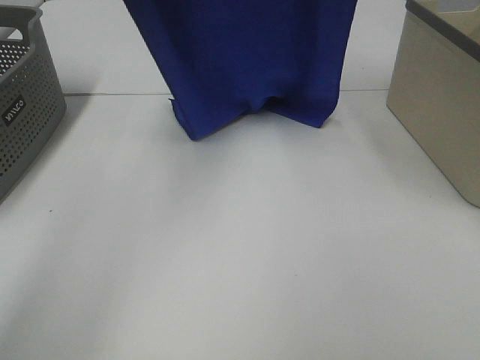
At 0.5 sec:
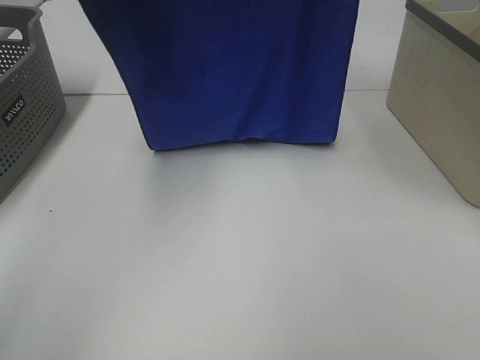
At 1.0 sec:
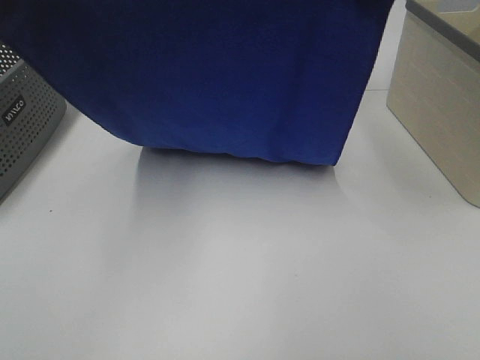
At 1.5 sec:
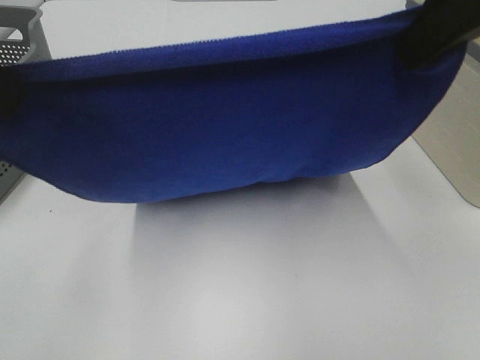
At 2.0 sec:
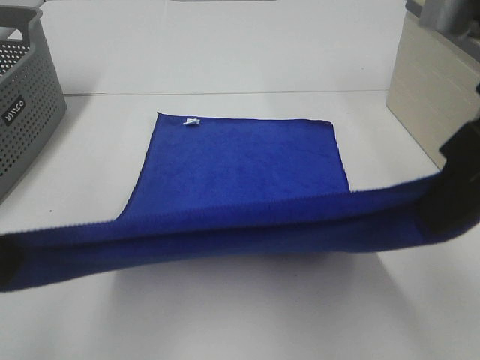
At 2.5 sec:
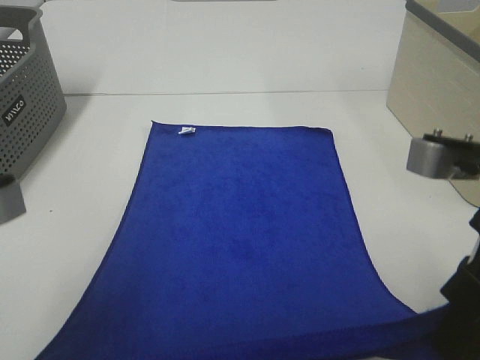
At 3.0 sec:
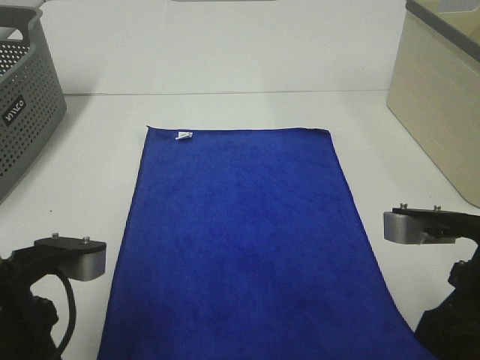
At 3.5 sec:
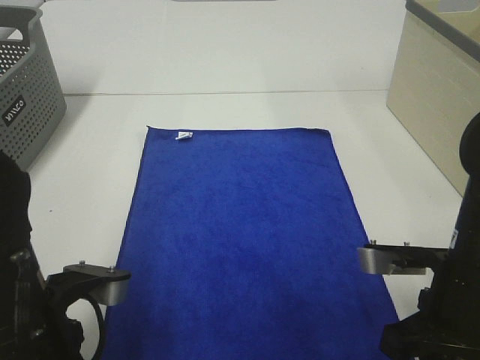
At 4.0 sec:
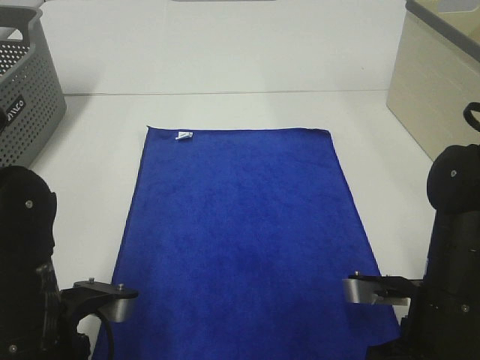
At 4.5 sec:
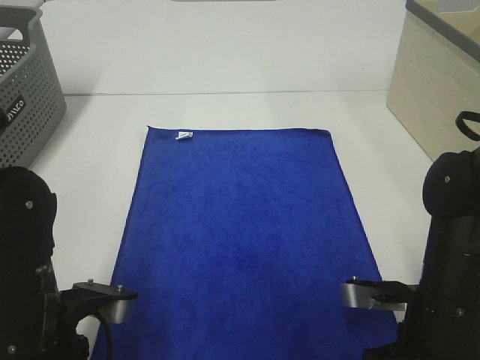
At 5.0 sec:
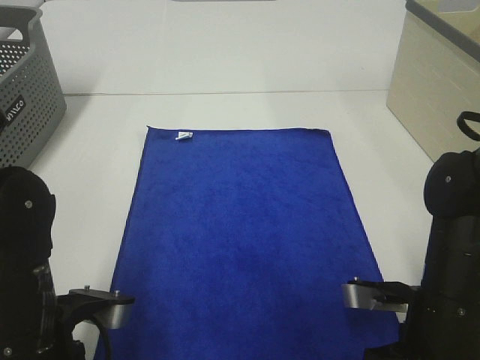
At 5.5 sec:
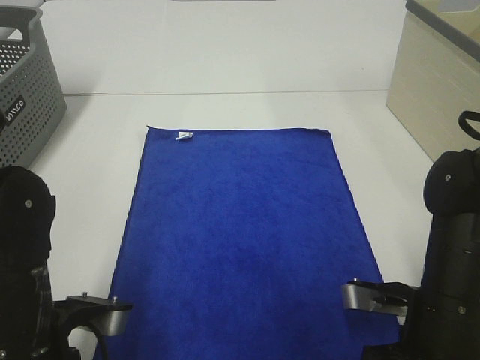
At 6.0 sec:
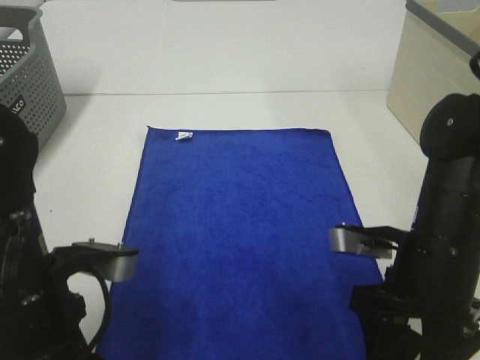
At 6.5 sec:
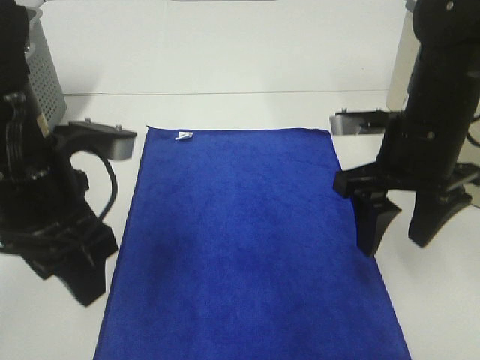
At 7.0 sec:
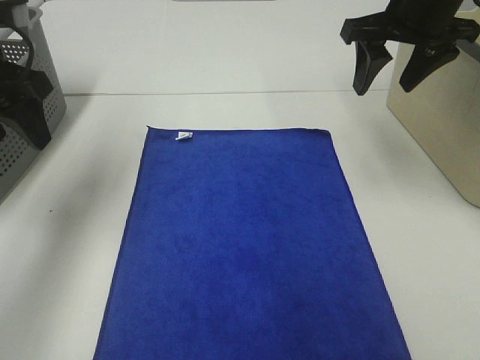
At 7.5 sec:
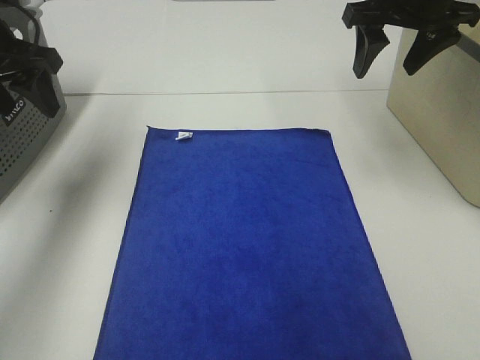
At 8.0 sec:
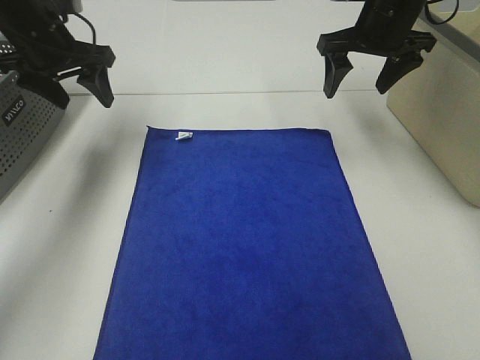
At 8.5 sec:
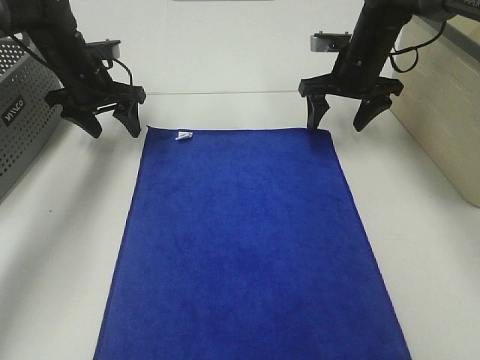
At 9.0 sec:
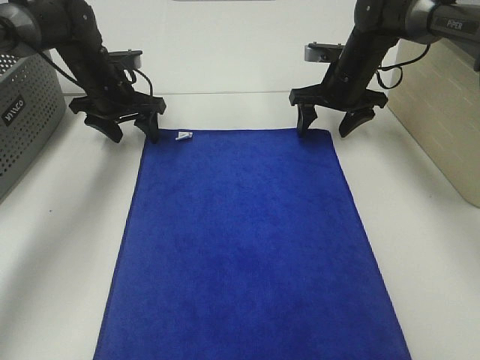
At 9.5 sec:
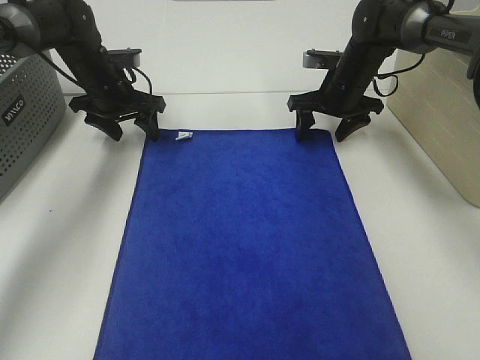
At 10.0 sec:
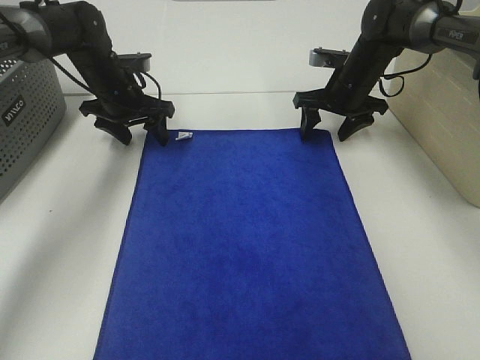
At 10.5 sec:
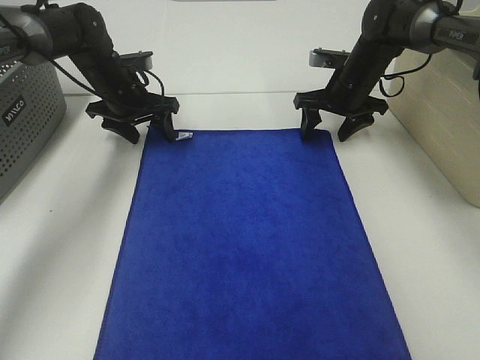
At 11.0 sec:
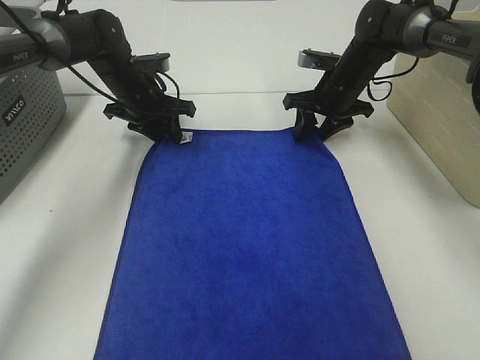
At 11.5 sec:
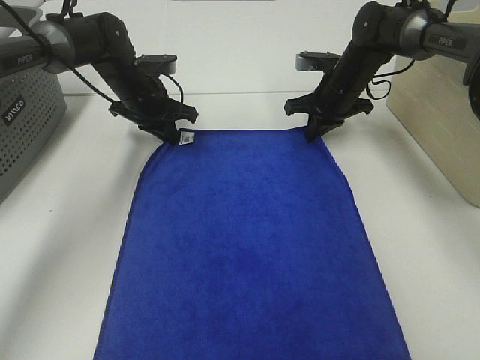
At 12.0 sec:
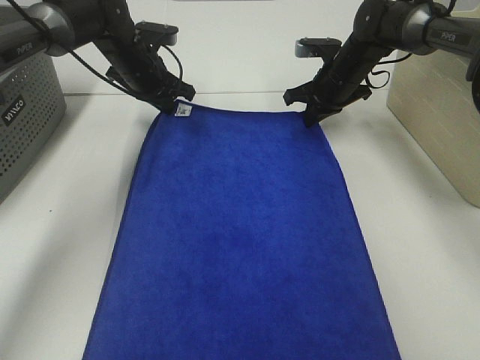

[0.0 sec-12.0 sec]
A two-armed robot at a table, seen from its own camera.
Task of the whole recording: Remove the towel and place it.
Step, 0.0 sec to 8.0 sec: Left hand:adjust the blue towel.
Step, 0.0 sec to 8.0 sec: Right hand:adjust the blue towel.
0.0 sec to 2.0 sec: The grippers both shift backward and downward by approximately 30 cm.
2.0 sec to 4.0 sec: The grippers both shift downward by approximately 20 cm.
4.0 sec to 6.0 sec: The left gripper heads upward, covering about 5 cm, and opens up, while the right gripper changes place by approximately 5 cm, and opens up.
6.0 sec to 8.0 sec: The two grippers go some 30 cm forward.
8.0 sec to 10.0 sec: The left gripper heads downward and forward, covering about 15 cm. Meanwhile the right gripper travels downward by about 15 cm.
10.0 sec to 12.0 sec: The right gripper closes its fingers. Meanwhile the left gripper changes place by approximately 5 cm, and closes up.

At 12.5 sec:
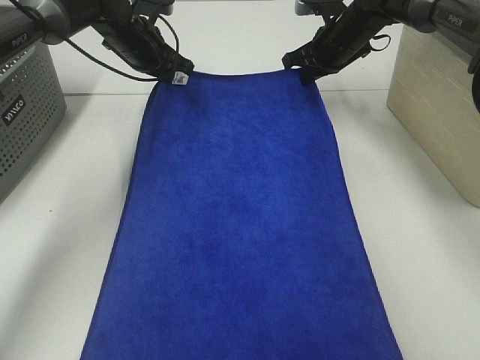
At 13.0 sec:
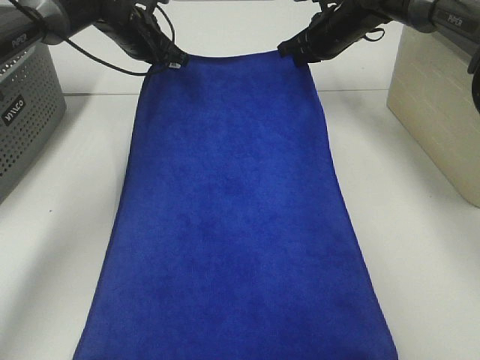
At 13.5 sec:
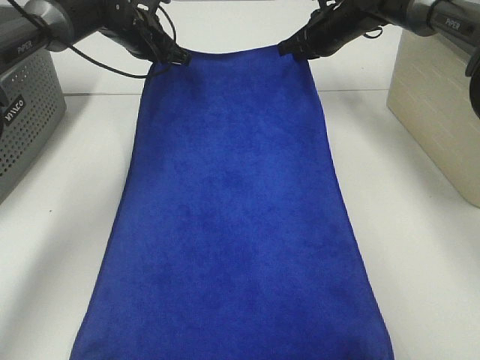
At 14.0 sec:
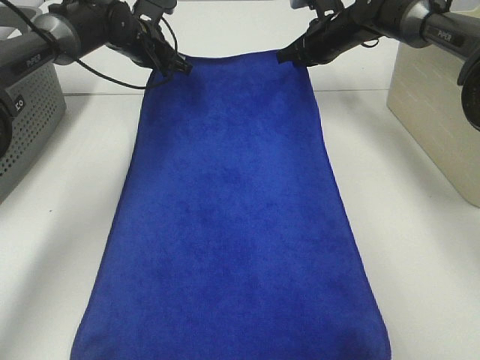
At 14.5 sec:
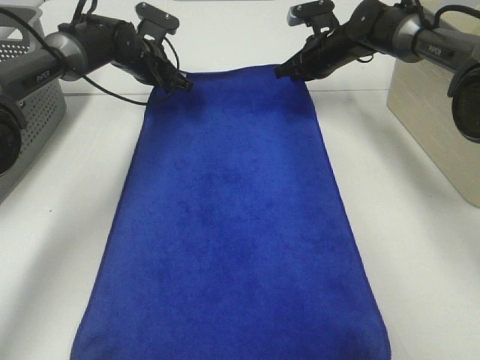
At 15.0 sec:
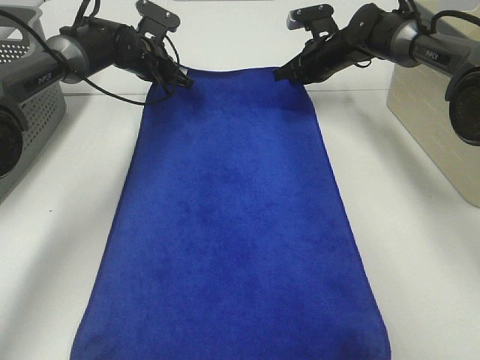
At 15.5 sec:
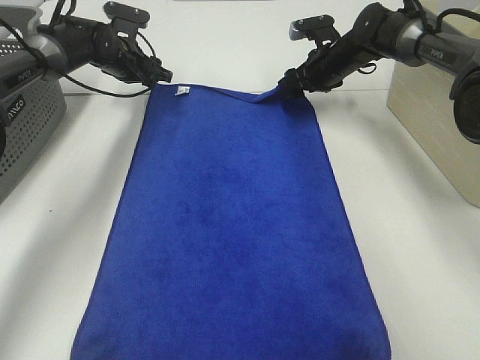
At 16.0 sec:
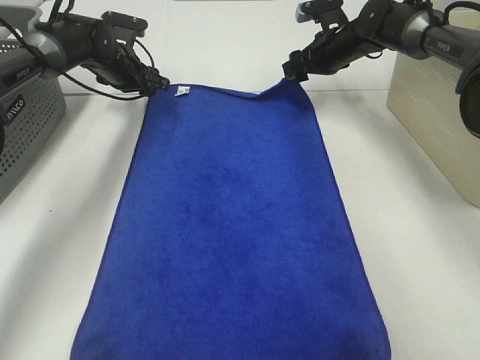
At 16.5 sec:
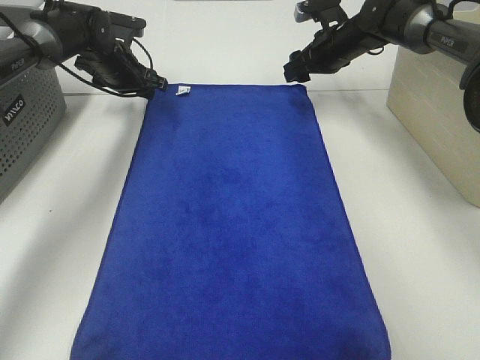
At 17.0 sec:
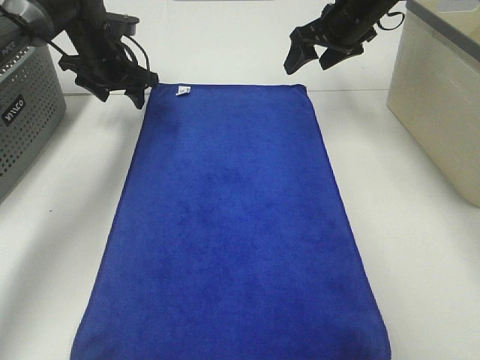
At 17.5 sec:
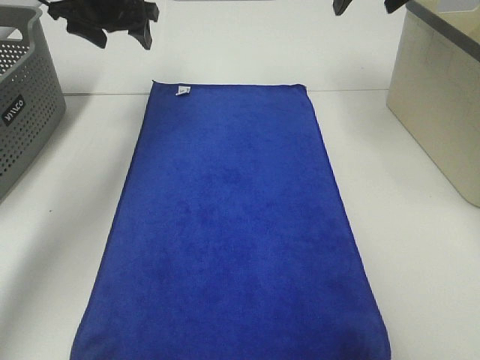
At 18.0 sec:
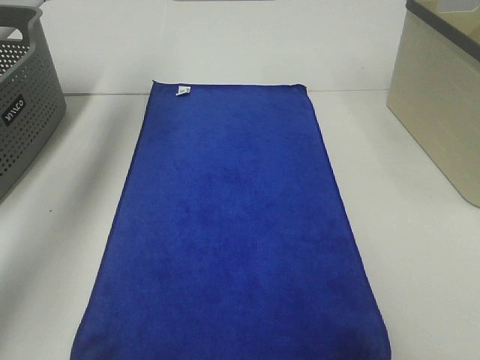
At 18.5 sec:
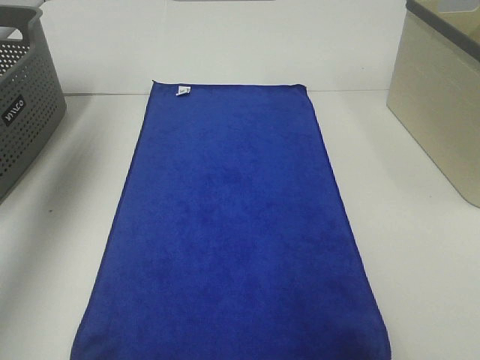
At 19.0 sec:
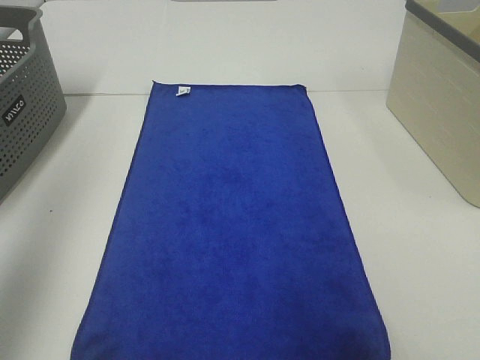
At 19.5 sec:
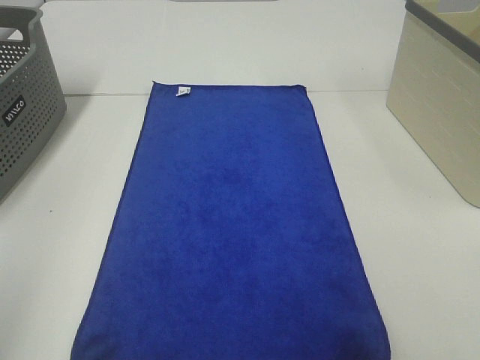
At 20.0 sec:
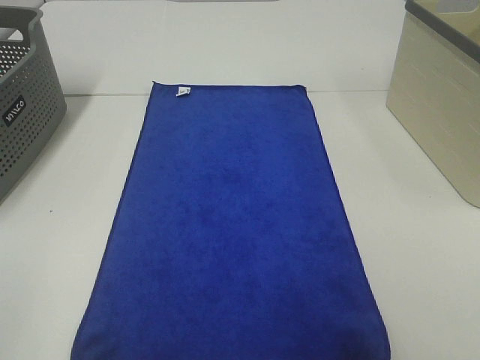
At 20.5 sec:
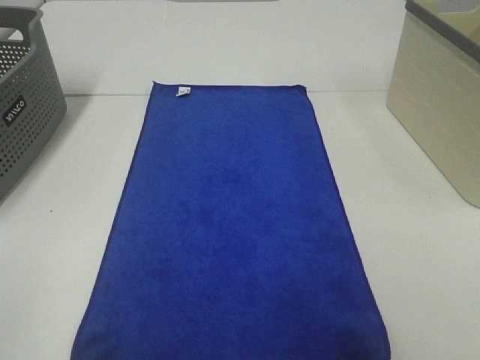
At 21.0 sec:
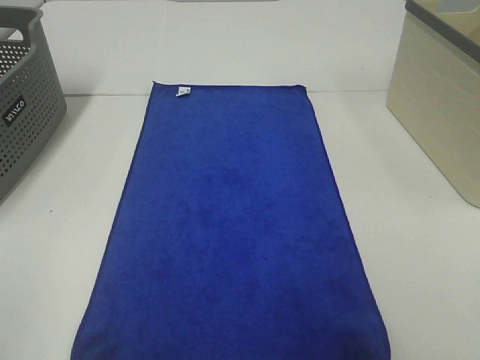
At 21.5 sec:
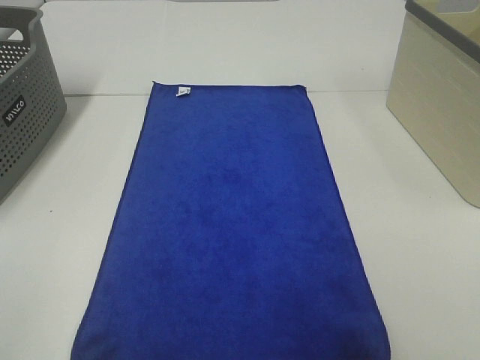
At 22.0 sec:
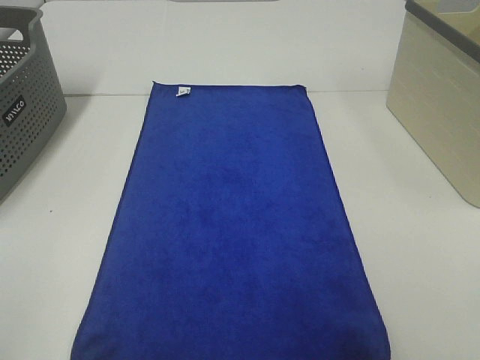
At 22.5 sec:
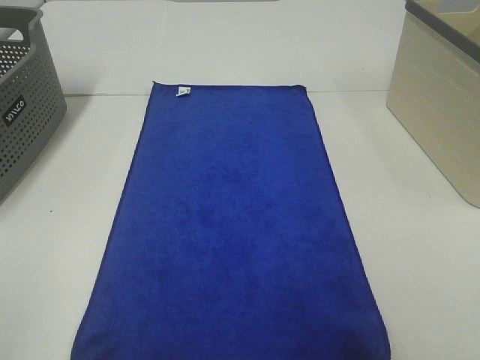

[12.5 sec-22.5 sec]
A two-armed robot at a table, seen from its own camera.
Task of the whole recording: Remove the towel and place it.
12.5 sec to 14.5 sec: The left gripper shifts by approximately 5 cm.
14.5 sec to 16.5 sec: The left gripper opens up, while the right gripper opens up.
16.5 sec to 18.5 sec: The right gripper travels upward and backward by about 40 cm. The left gripper goes roughly 40 cm upward, backward and to the left.
18.5 sec to 20.5 sec: The left gripper shifts roughly 40 cm backward.

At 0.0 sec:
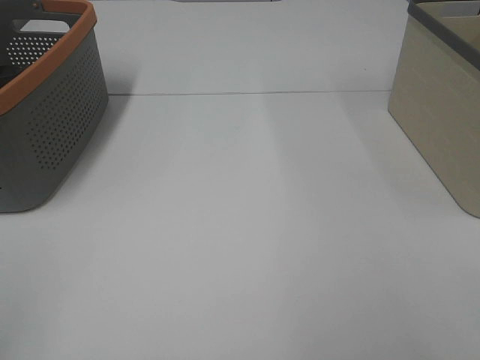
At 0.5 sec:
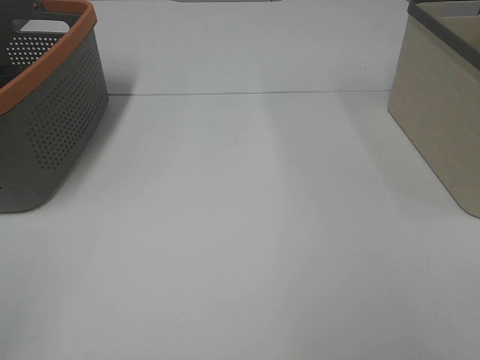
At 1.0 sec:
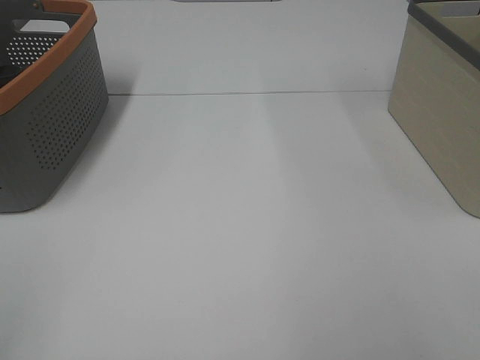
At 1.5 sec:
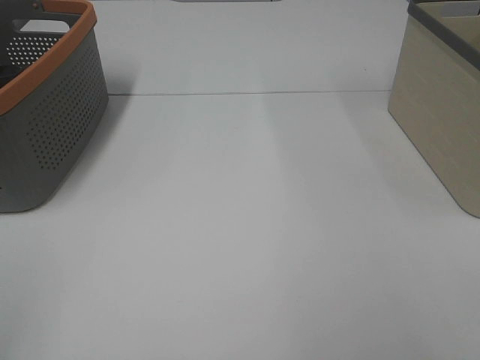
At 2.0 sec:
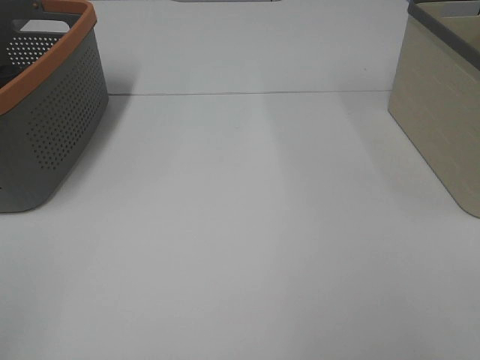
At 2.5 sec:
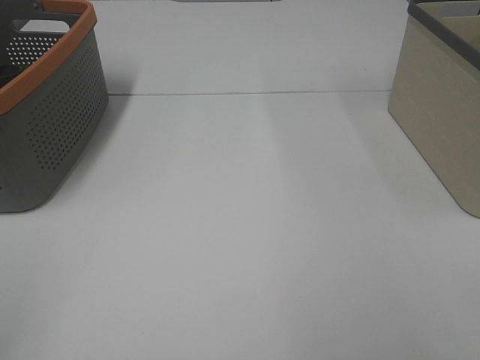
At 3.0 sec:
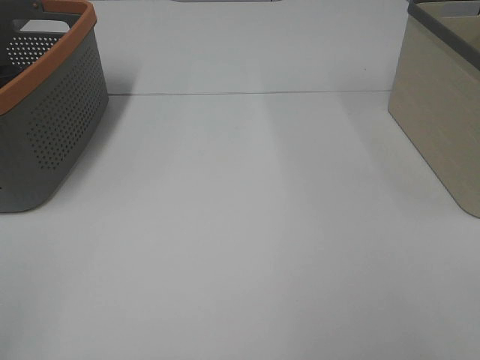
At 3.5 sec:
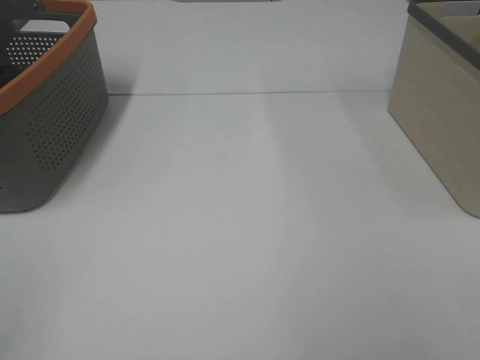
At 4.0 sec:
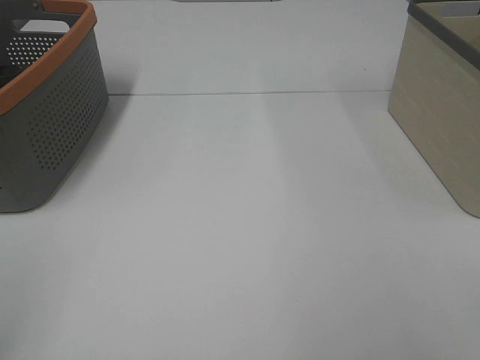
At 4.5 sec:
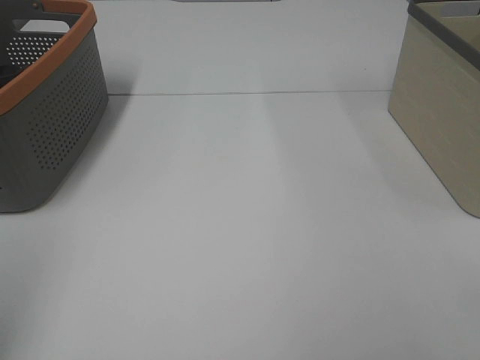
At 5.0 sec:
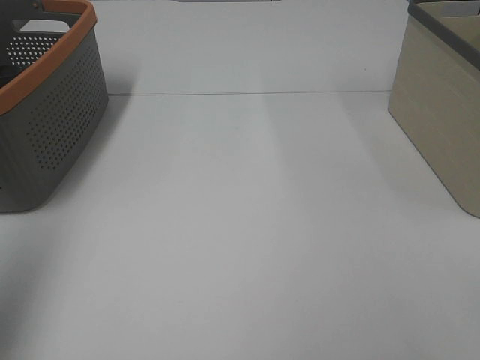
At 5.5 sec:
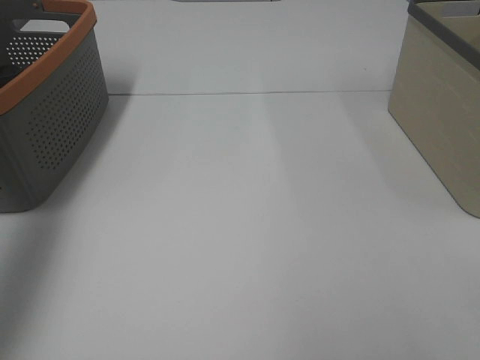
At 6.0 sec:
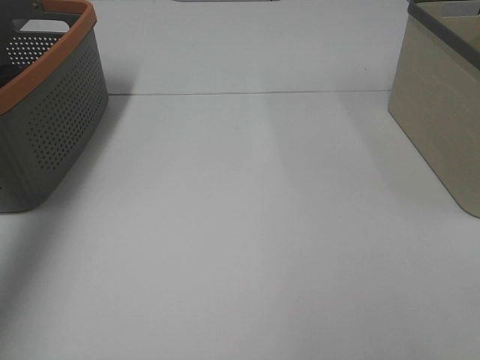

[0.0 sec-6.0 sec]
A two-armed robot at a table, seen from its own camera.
Task of the whole recording: Remove the towel and place it.
0.0 sec to 2.0 sec: Both grippers stay about where they are.
4.0 sec to 6.0 sec: The left gripper moves forward, roughly 35 cm.
